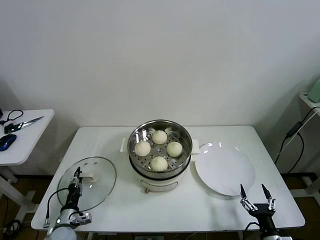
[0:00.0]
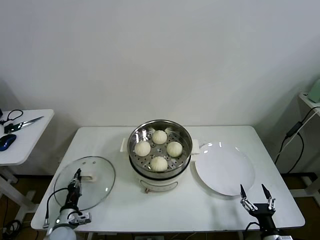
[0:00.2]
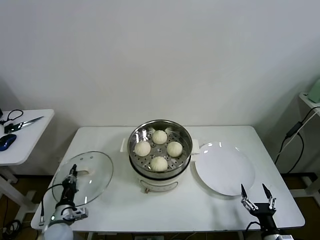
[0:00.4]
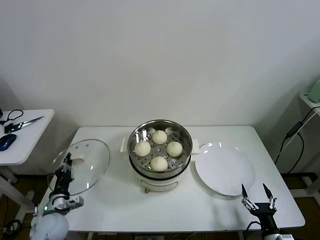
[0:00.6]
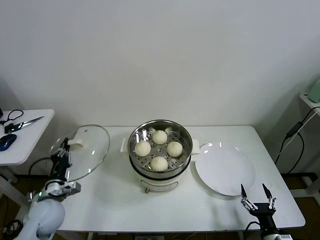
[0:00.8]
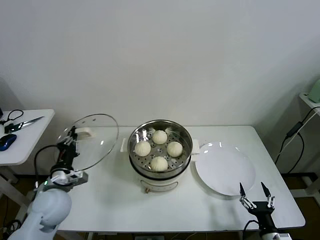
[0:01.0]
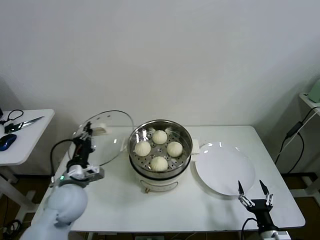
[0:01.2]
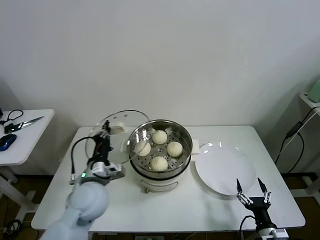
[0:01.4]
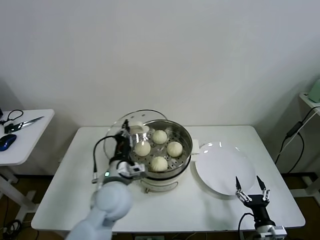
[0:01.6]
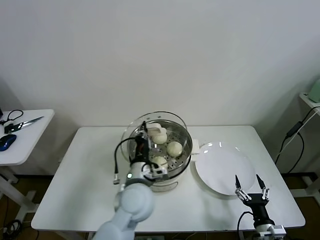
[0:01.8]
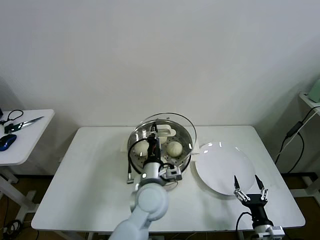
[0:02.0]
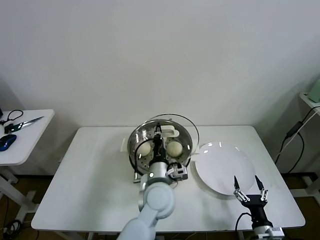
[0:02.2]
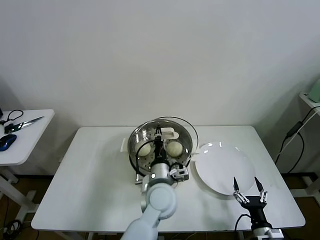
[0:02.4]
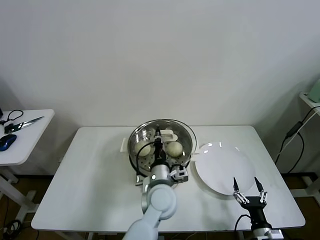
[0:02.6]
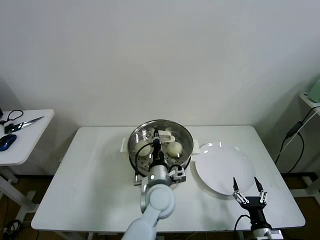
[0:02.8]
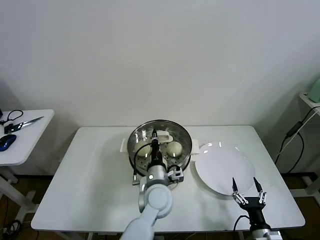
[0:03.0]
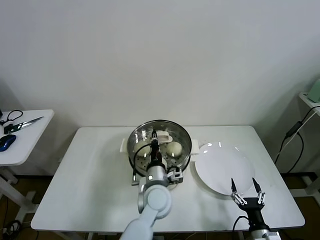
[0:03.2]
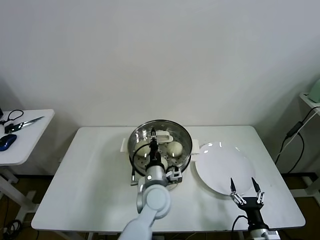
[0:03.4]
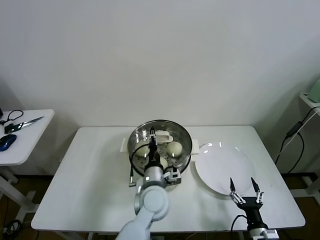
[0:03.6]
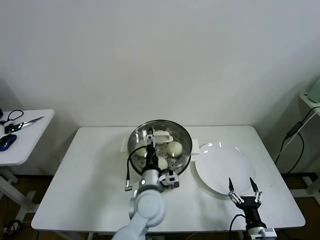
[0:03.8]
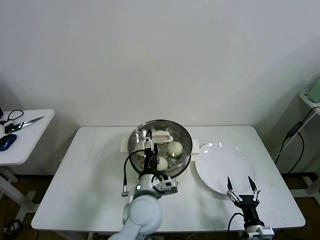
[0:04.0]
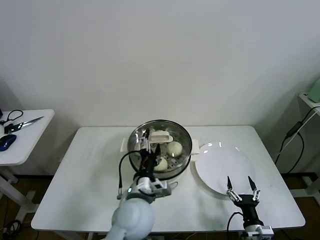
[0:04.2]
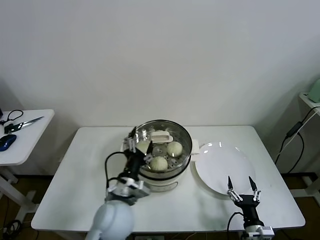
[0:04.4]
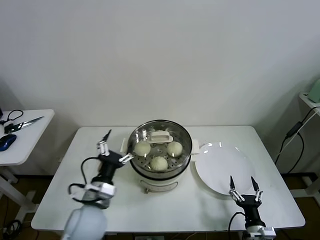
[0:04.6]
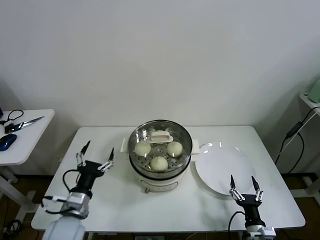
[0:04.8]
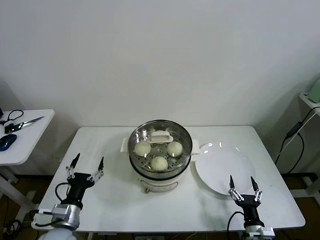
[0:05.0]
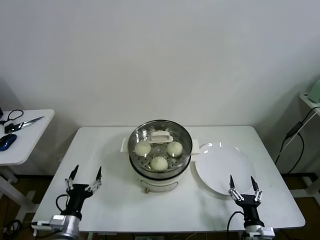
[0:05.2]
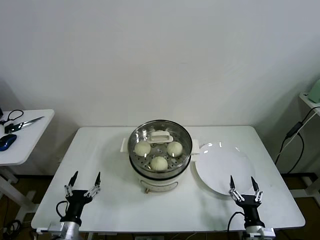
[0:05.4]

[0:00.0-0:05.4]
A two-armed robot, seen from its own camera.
Task of the whole recording: take steamed baozi put them in steamer then cover it.
Step, 0:00.4 to 0:03.4: Place the pot lid on the steamer with left gripper.
0:00.0 to 0:01.4: The left gripper moves upward and to the right, approximately 30 cm, and closes up.
0:01.4 to 0:02.8: The left gripper shifts some 20 cm to the right.
0:02.8 to 0:04.0: The left gripper ends up about 5 cm from where it was, and opens its fingers.
0:04.0 to 0:05.4: The left gripper heads to the left, backward and downward, covering about 30 cm.
